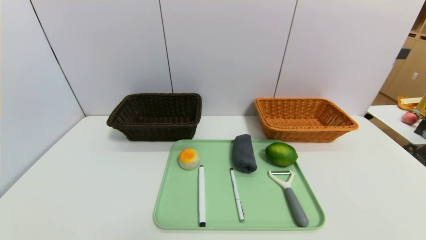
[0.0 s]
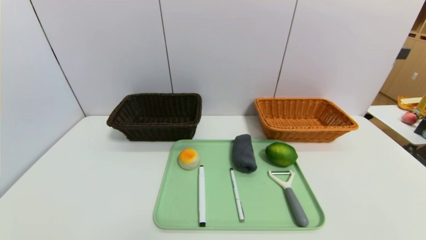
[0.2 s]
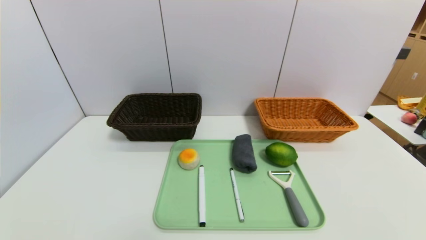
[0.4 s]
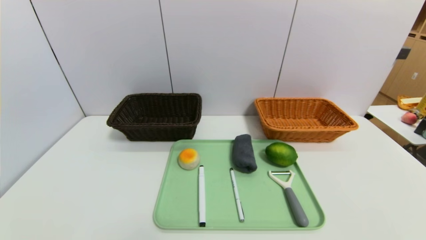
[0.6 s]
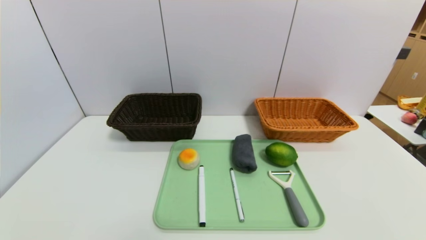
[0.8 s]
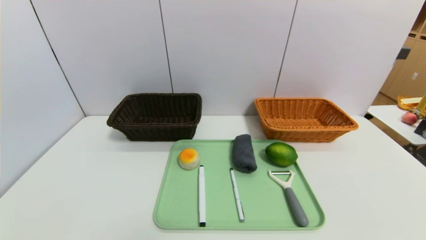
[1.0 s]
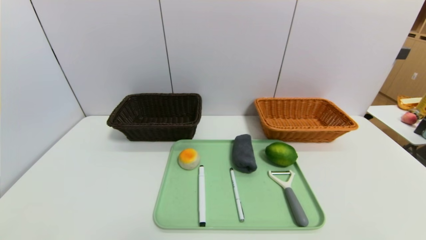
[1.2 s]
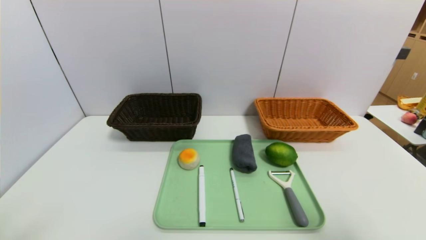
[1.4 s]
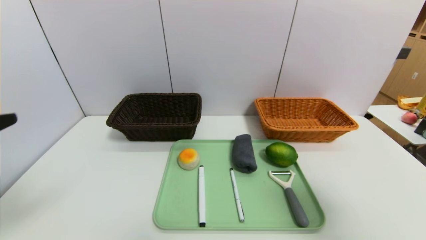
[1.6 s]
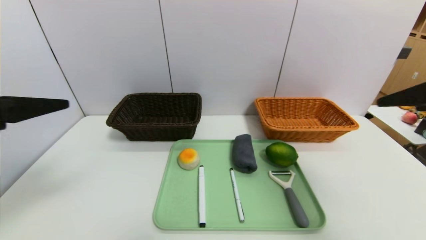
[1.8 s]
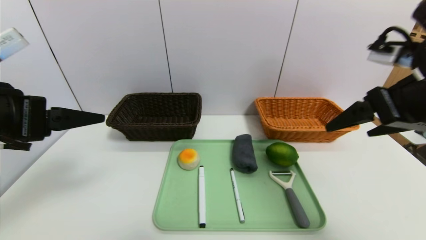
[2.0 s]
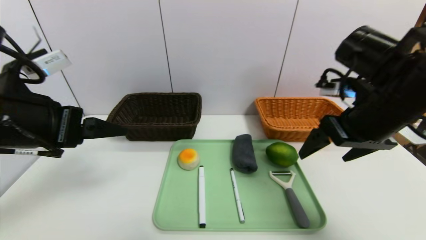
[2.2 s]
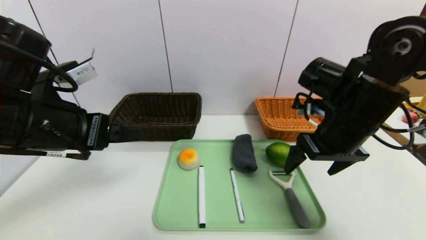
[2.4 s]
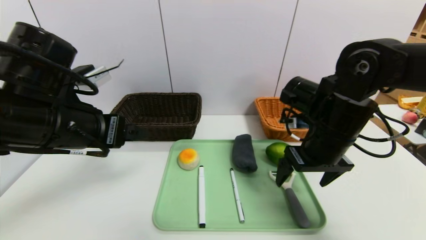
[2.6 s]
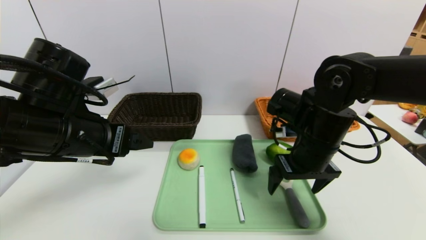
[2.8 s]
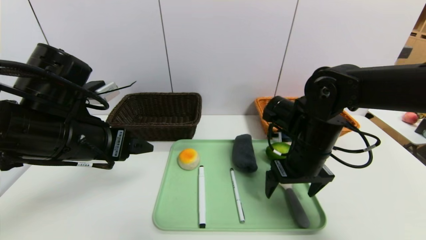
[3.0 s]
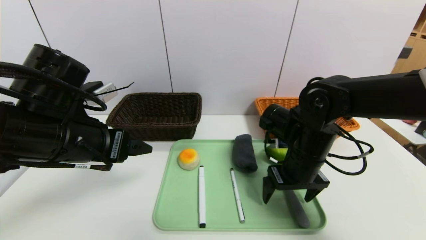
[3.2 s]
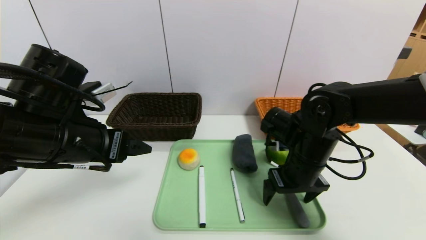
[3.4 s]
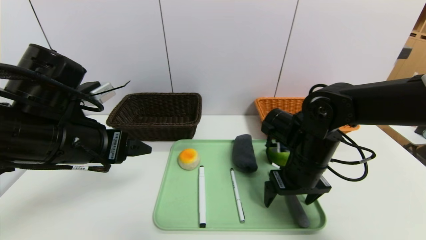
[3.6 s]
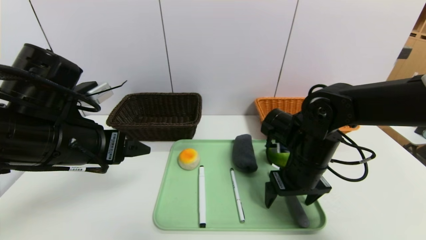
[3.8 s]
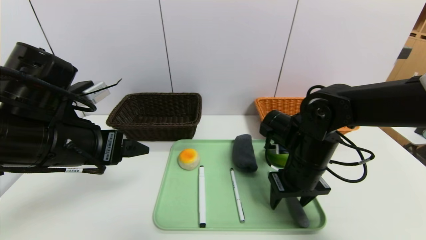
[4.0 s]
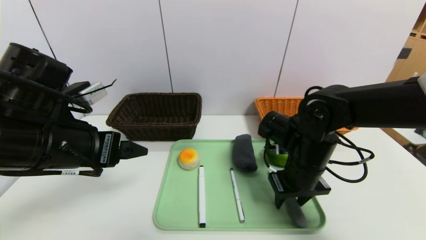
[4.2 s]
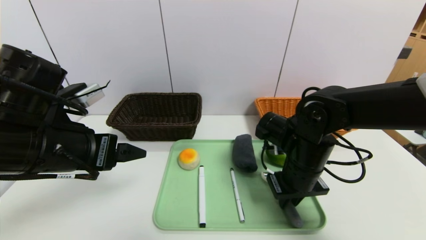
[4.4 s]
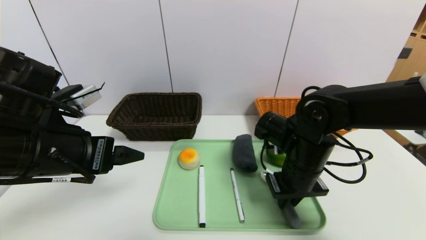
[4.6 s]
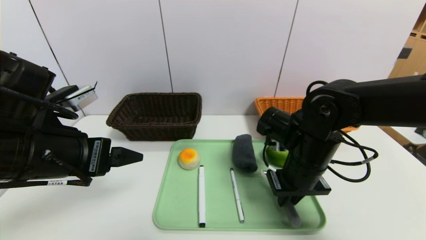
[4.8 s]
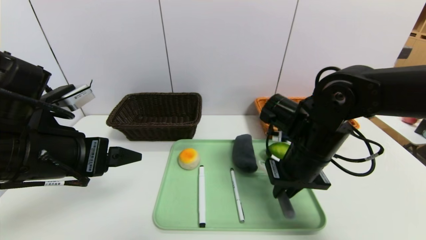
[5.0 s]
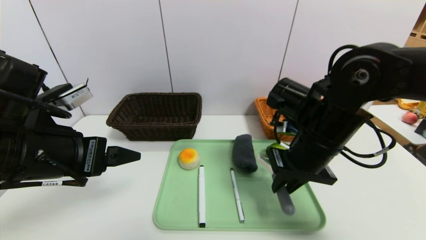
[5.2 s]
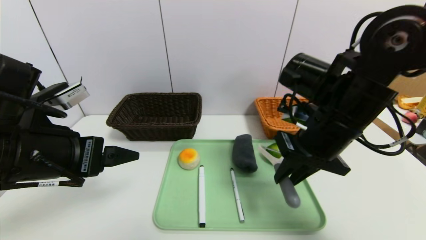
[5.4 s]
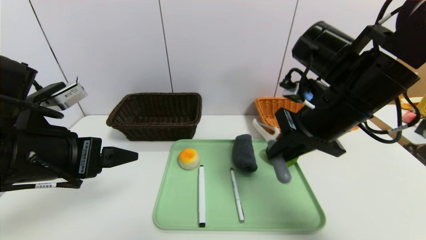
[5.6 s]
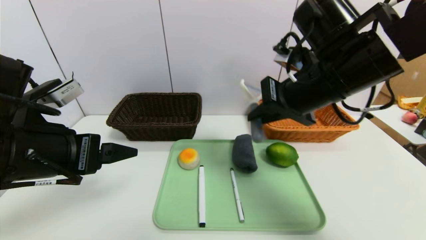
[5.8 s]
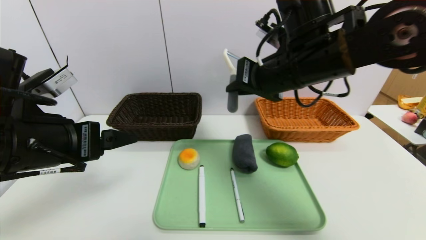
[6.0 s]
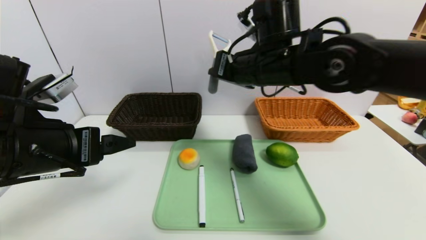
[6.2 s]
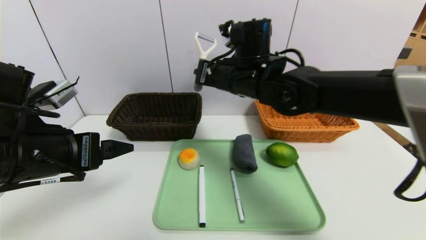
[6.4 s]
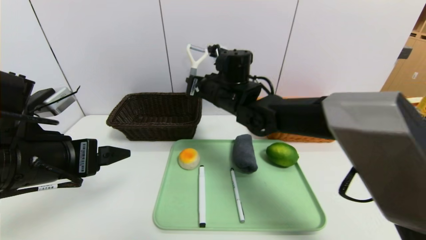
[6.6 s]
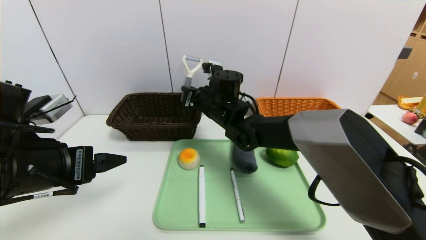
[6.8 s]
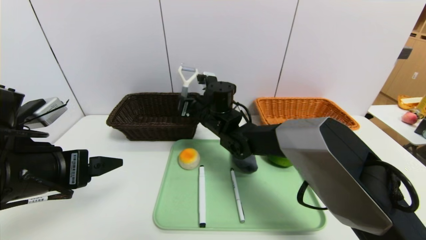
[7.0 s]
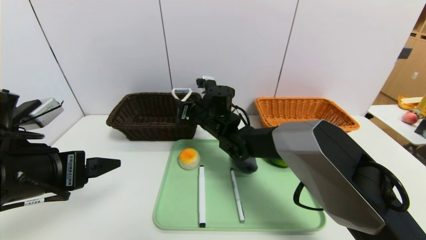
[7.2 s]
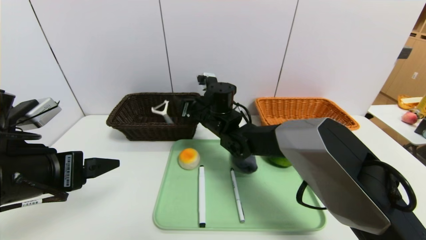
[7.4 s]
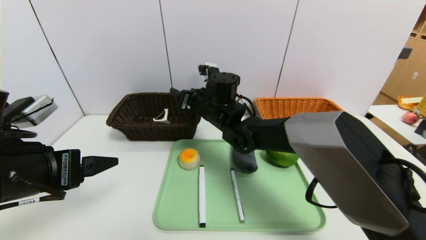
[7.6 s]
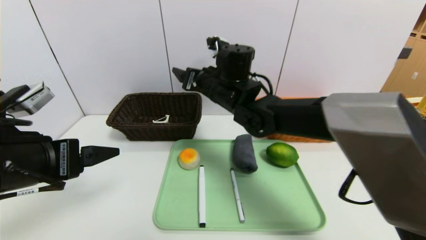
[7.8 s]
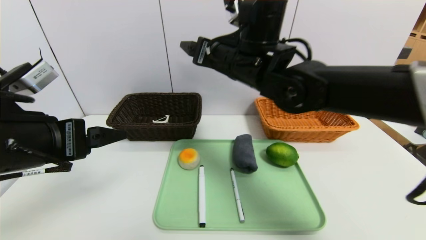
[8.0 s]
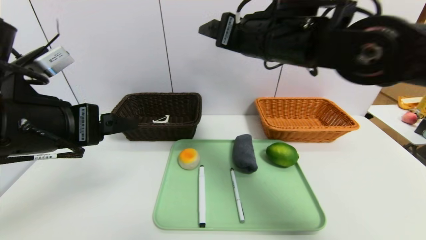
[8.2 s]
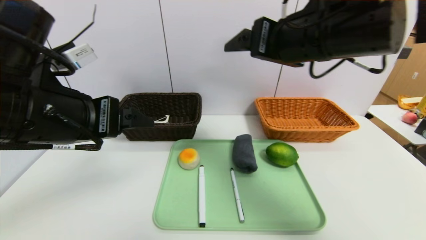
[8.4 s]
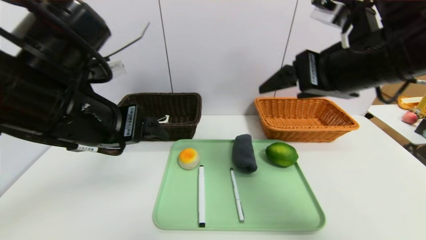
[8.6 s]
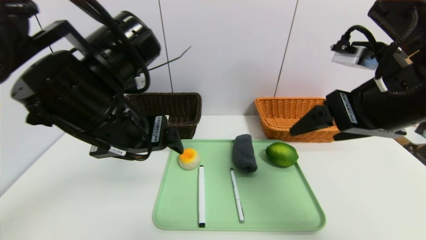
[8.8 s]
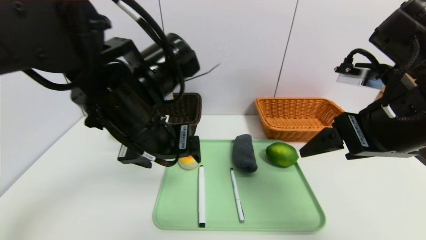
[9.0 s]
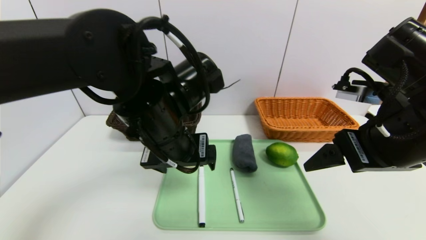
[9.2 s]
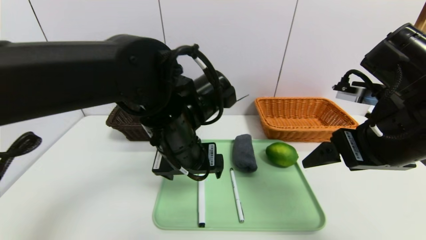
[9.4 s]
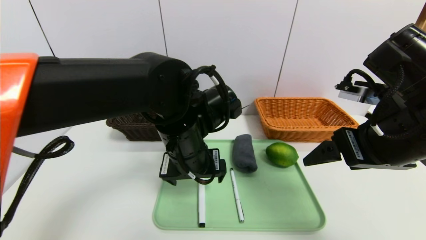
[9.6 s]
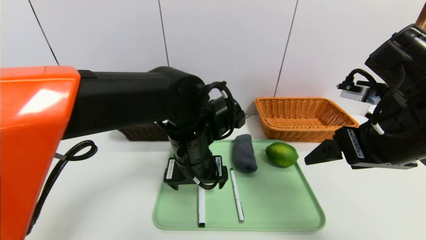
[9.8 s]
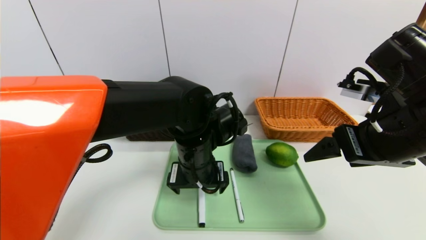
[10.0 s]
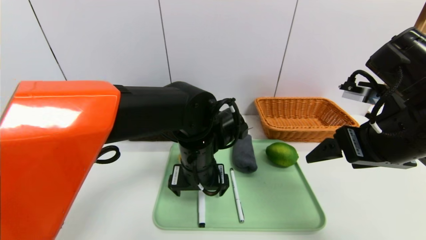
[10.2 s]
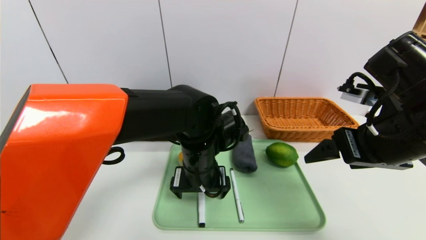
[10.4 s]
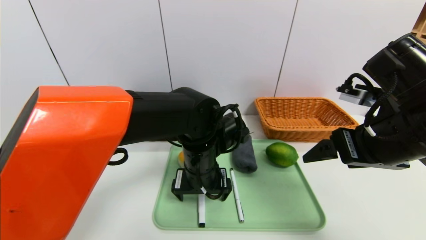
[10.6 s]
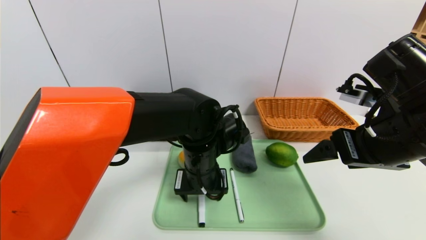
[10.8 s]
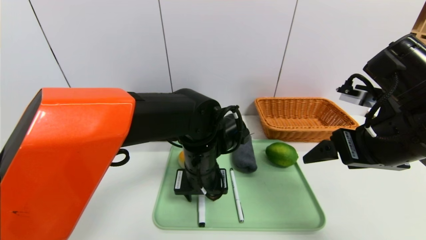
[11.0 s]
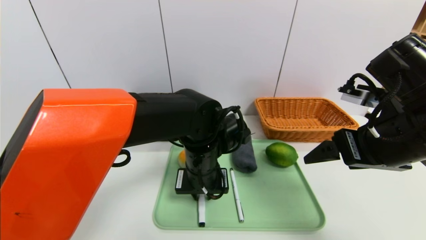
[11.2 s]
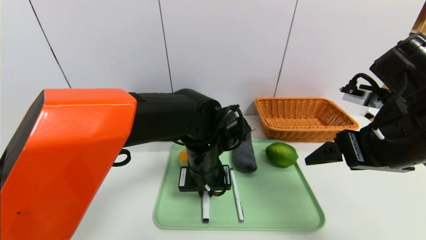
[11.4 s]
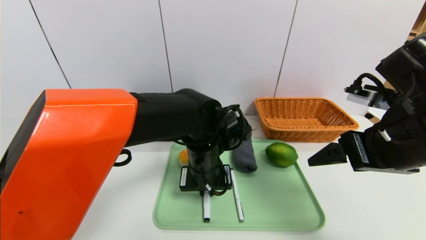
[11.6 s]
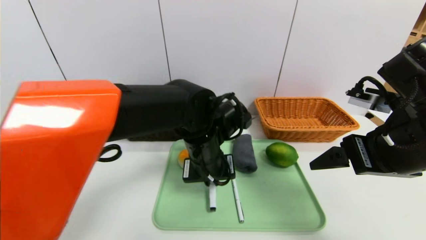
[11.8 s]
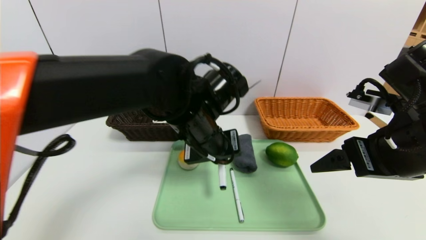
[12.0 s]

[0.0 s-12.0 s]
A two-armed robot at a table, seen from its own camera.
Task of the whole recording: place the food in the right basket with the right gripper, and place the non food items in the left basket with the left gripper.
Step, 0.0 to 8.0 s: Grasp the peeler and put it in the left basket.
0.0 to 1.6 s: The right gripper is displaced upward and forward by some 30 cm. Meanwhile the left gripper shifts about 25 cm upward.
1.6 to 3.0 s: The left gripper travels forward, to the right and downward by some 15 cm. The right gripper is displaced forward, downward and to the left by about 30 cm.
3.0 to 4.4 s: The right gripper closes.
4.4 to 6.0 s: The right gripper is displaced upward by roughly 15 cm.
6.0 to 7.6 s: The right gripper goes approximately 20 cm downward, to the left and forward, and opens.
7.6 to 9.0 s: The left gripper shifts some 15 cm to the right and forward, while the right gripper moves to the right, backward and upward, about 30 cm.
9.0 to 10.4 s: The left gripper shifts roughly 15 cm downward and to the right.
10.4 to 12.0 s: The left gripper goes approximately 10 cm upward, and closes.

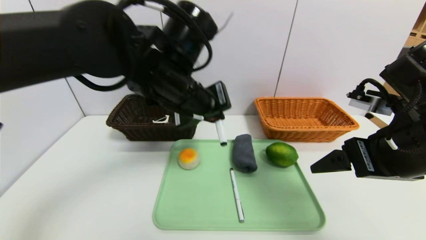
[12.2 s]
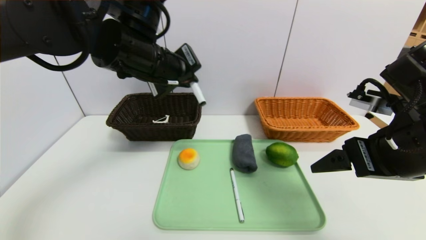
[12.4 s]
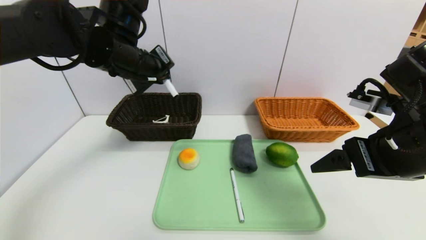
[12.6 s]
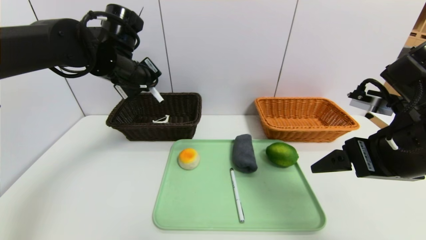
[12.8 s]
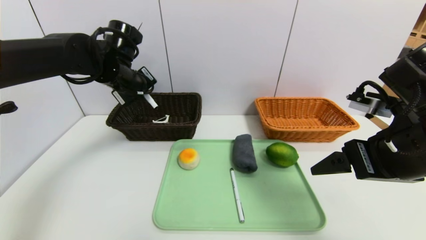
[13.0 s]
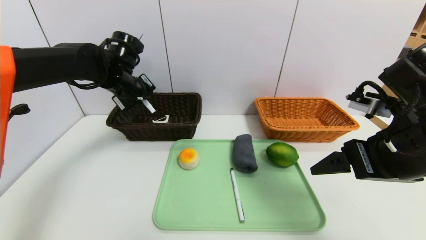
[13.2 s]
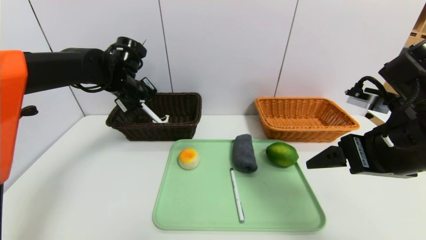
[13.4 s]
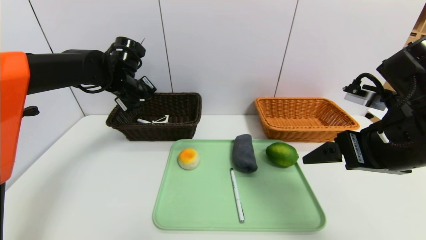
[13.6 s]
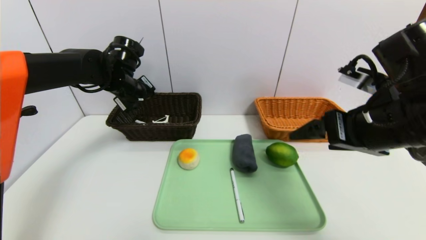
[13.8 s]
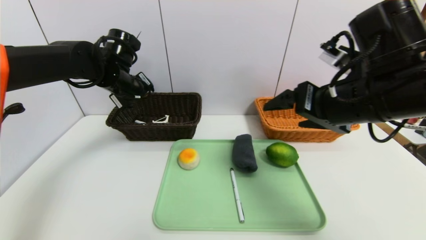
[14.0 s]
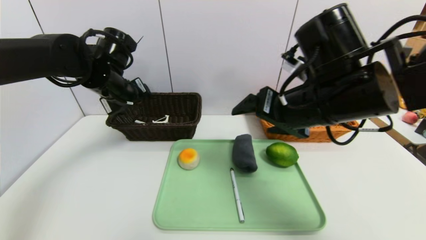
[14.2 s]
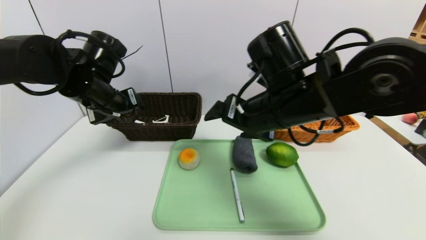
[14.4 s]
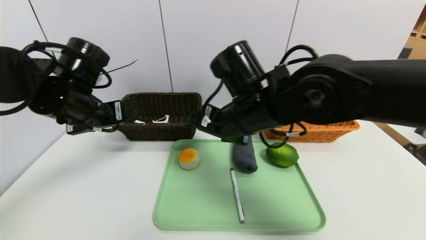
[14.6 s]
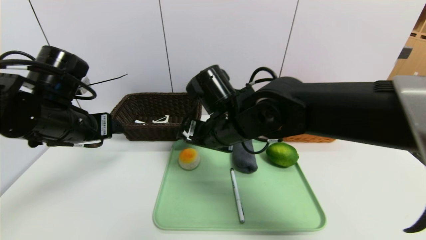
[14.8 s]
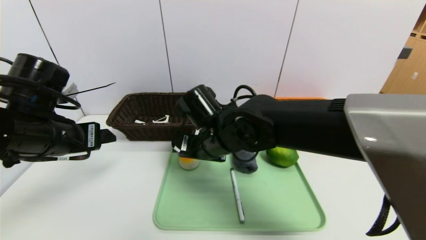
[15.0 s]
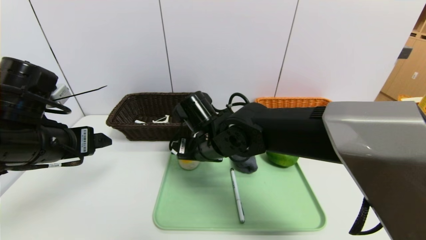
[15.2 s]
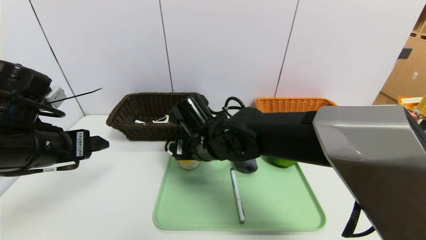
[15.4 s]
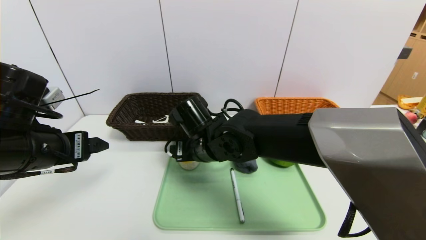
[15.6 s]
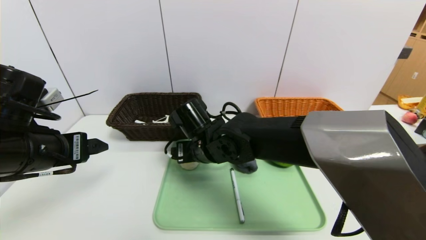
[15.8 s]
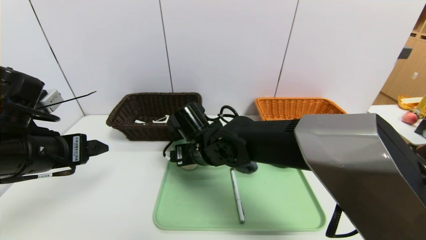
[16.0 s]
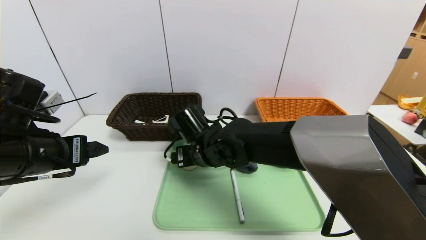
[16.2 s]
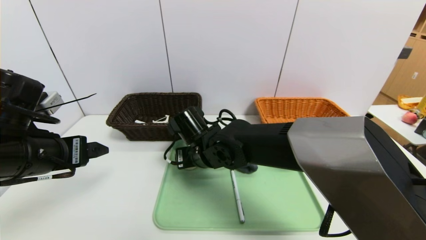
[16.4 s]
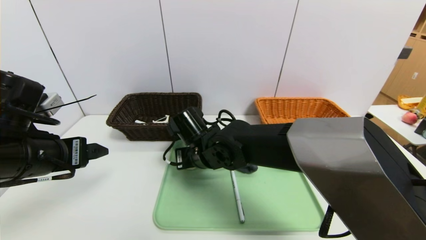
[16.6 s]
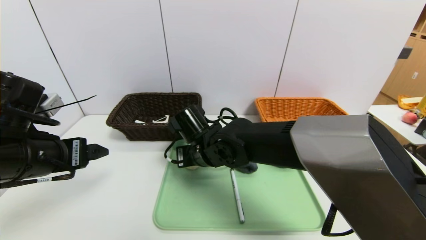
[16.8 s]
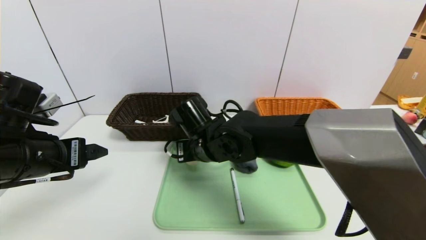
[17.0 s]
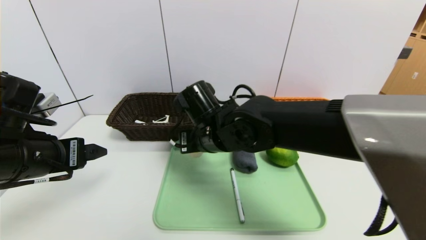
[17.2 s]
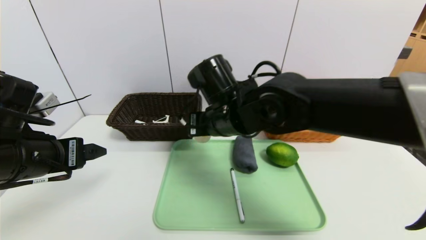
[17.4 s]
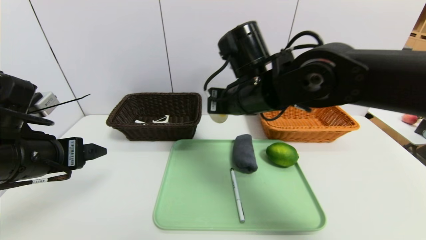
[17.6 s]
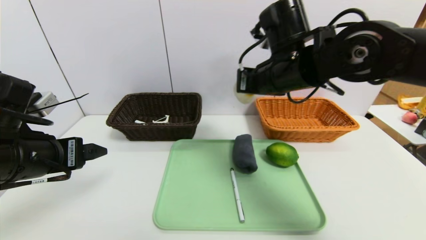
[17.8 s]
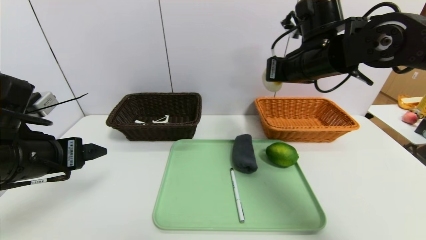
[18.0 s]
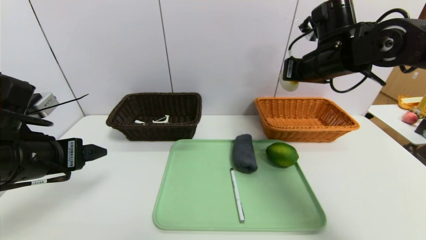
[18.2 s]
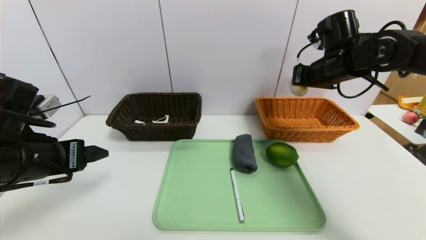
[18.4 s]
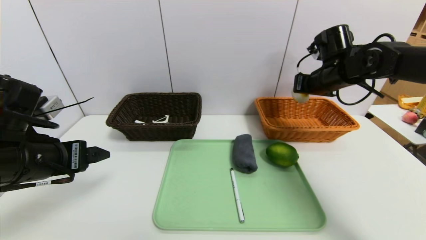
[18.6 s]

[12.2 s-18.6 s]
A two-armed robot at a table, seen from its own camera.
Task of the whole recording: place the food in the right basket with the right gripper, and place the non food items in the left basket with the left gripper.
12.2 to 13.8 s: The left gripper travels to the left and forward by approximately 20 cm, and opens its fingers.
13.8 to 15.4 s: The left gripper goes some 20 cm backward, while the right gripper moves to the left and downward, roughly 25 cm.
15.4 to 17.0 s: The right gripper closes.
17.0 to 18.6 s: The right gripper goes roughly 30 cm to the right.
